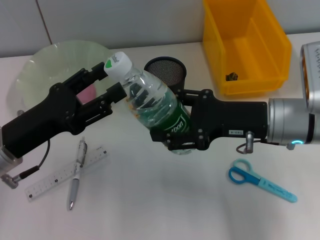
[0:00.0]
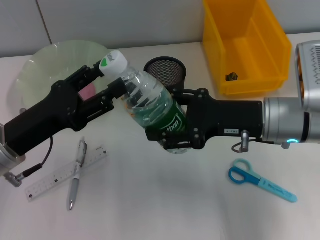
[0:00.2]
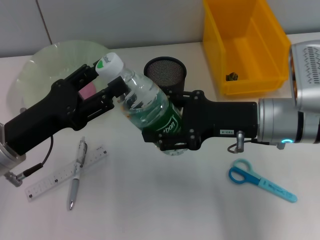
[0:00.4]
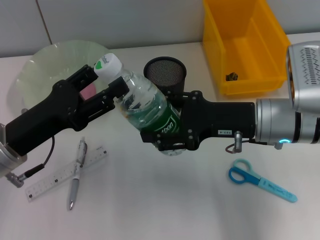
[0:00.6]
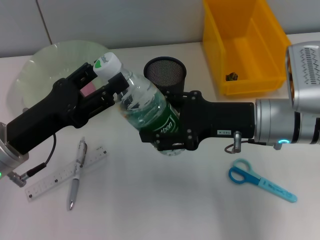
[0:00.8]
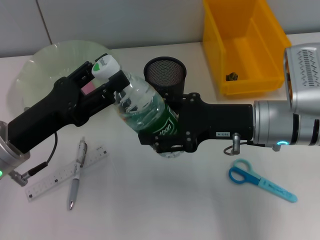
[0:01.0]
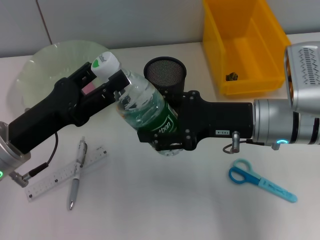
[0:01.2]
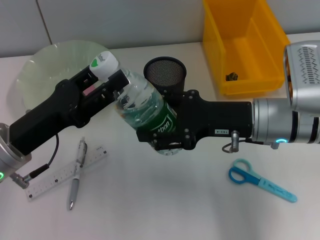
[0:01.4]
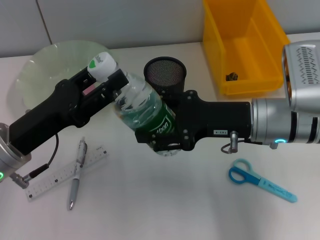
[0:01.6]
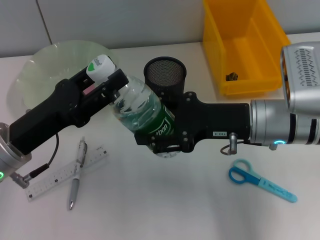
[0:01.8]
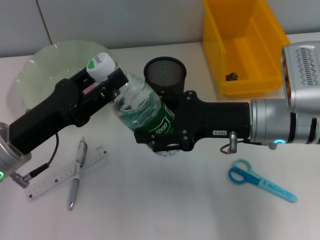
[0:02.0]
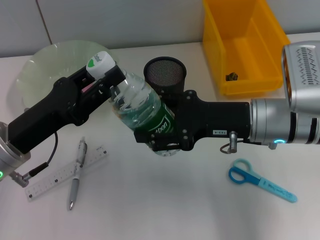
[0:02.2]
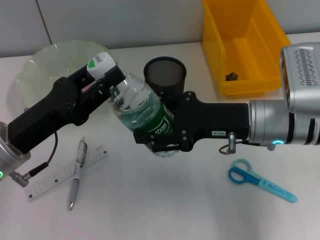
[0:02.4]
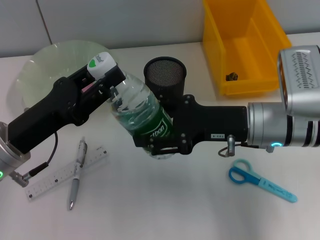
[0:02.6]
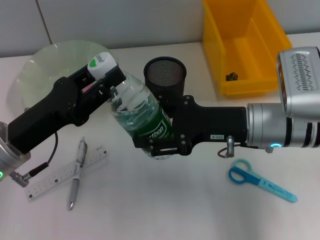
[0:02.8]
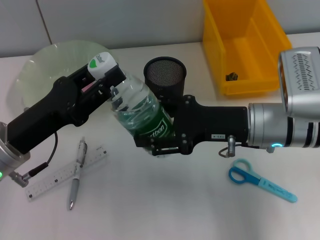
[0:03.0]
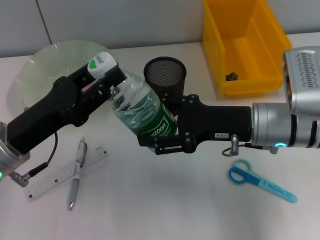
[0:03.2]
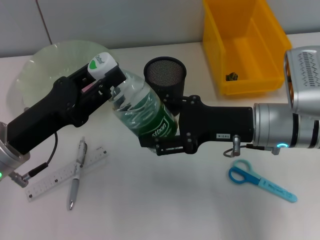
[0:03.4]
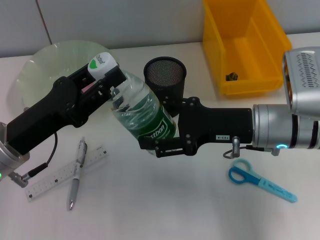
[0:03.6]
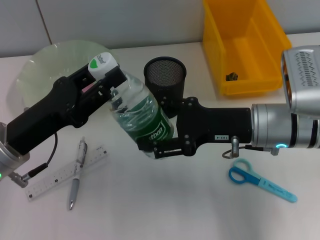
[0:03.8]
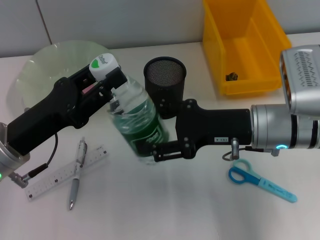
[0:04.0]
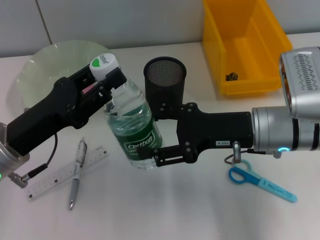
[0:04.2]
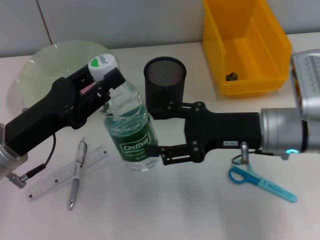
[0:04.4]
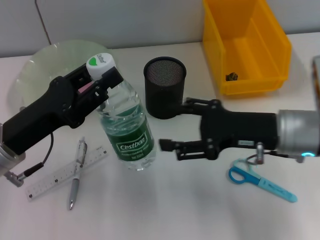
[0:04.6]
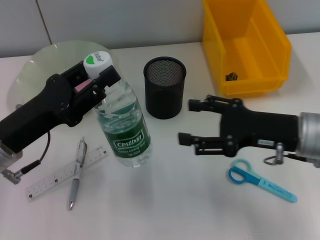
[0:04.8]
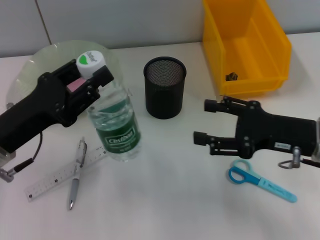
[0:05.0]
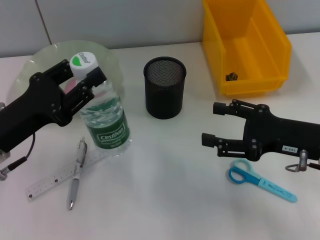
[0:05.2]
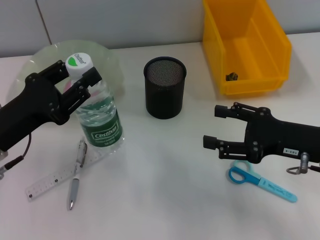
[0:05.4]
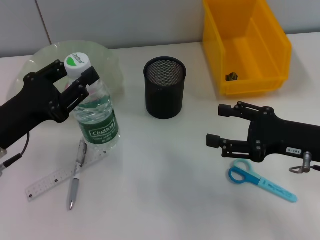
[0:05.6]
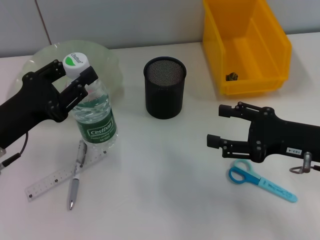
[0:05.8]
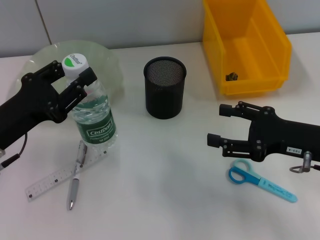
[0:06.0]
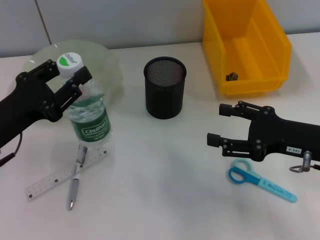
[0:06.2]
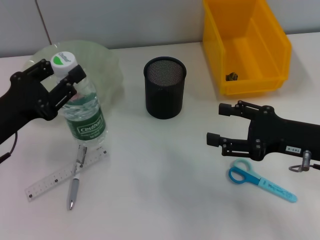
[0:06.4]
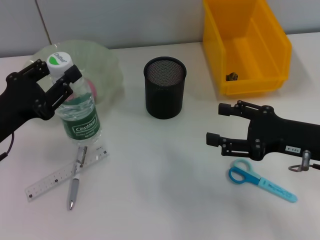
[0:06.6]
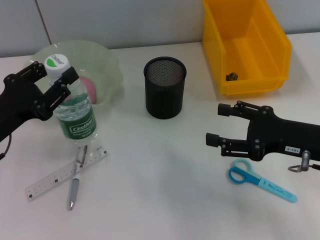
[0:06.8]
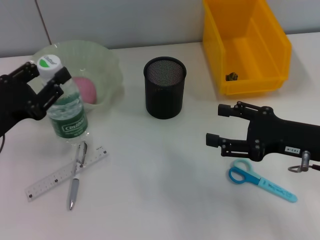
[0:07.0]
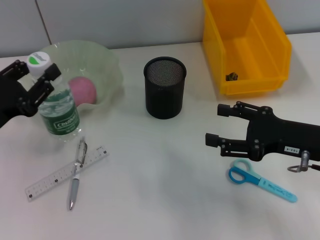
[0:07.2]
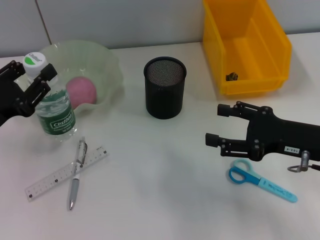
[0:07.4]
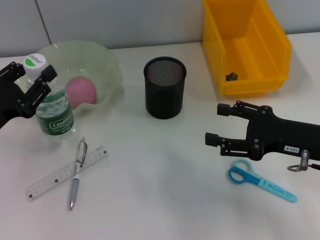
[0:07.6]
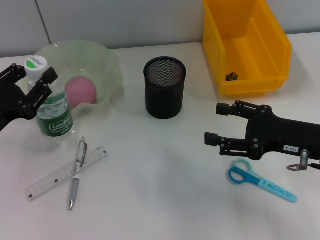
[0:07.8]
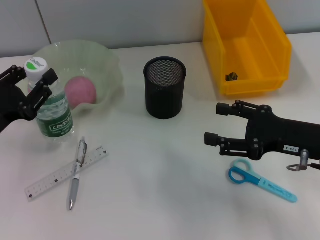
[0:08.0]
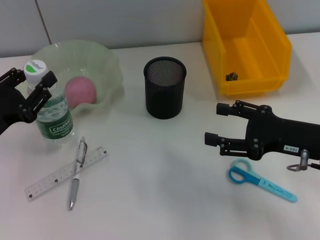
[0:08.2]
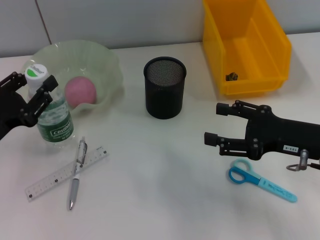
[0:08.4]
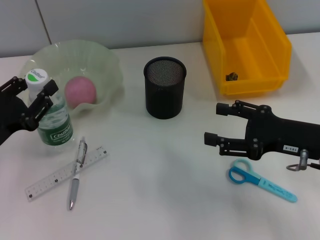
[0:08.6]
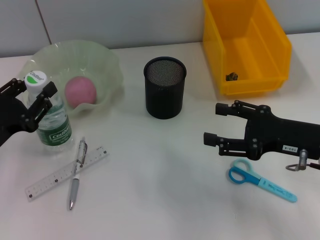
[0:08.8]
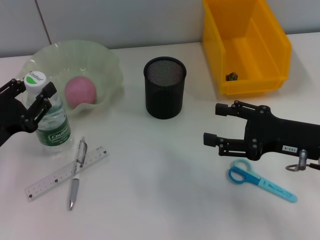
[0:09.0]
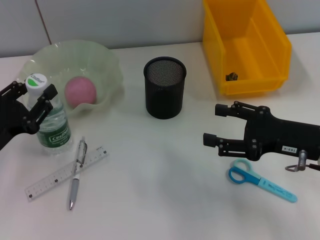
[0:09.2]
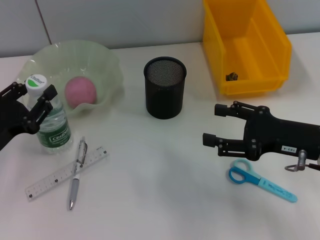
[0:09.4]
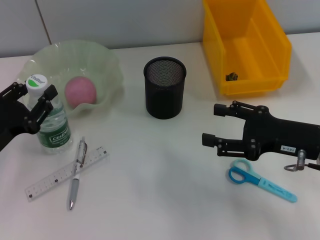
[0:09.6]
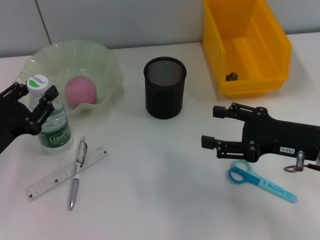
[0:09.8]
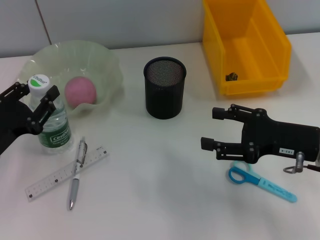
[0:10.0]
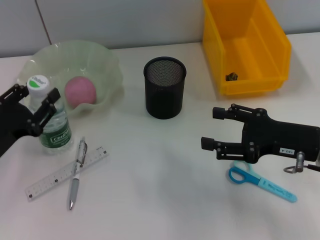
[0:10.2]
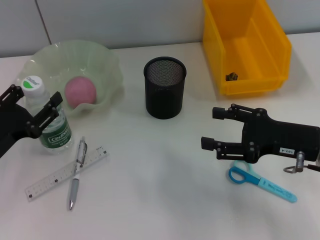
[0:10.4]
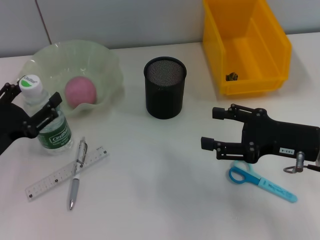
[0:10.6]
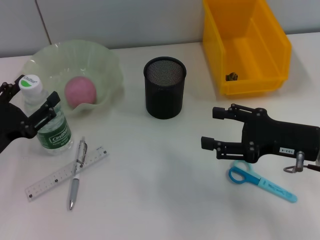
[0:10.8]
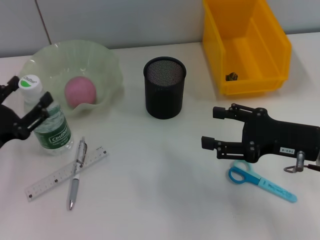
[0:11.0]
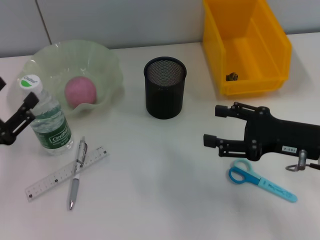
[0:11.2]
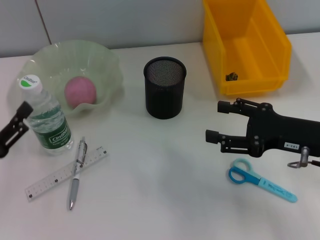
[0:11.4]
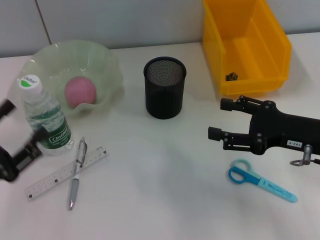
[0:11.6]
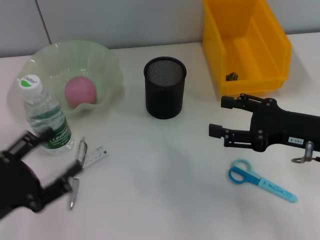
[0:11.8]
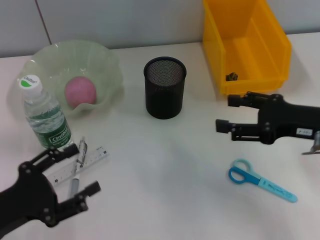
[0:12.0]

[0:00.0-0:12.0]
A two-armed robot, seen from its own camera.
Step, 0:00.0 to 0:04.6: Pass the water bottle from the right hand to the left hand.
Step, 0:04.8 to 0:10.8: Place the water bottle on the table with the left hand.
0:00.0 to 0:01.6: There are only small adjustments of the grippers.
0:01.6 to 0:03.0: Neither gripper changes place.
0:03.0 to 0:04.4: The grippers make only small movements.
0:04.4 to 0:06.0: The right gripper moves to the right, about 10 cm.
0:06.0 to 0:07.6: The grippers stay close to where they were, moving slightly.
0:07.6 to 0:09.0: The grippers stay close to where they were, moving slightly.
0:09.0 to 0:10.4: Neither gripper changes place.
0:10.4 to 0:12.0: The left gripper goes roughly 5 cm backward.

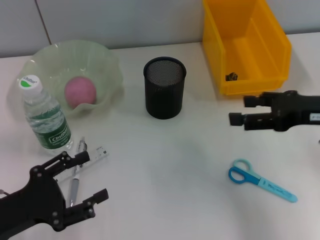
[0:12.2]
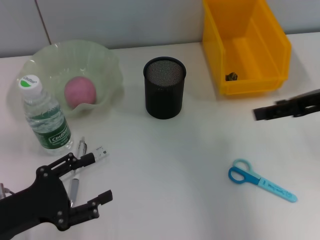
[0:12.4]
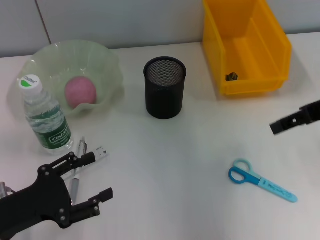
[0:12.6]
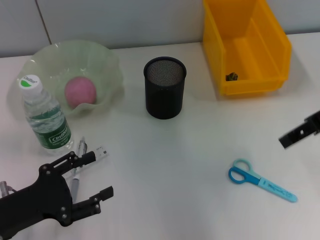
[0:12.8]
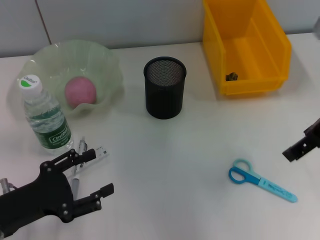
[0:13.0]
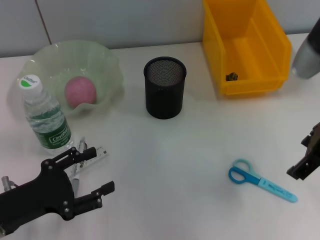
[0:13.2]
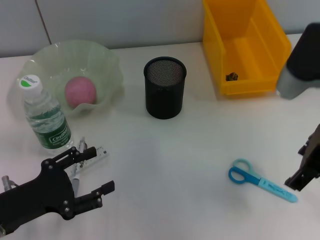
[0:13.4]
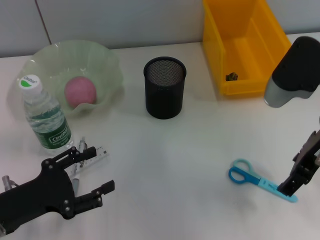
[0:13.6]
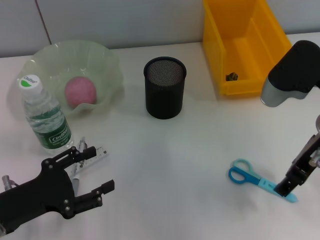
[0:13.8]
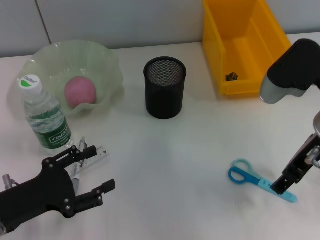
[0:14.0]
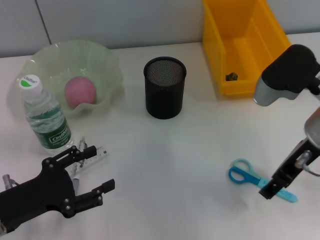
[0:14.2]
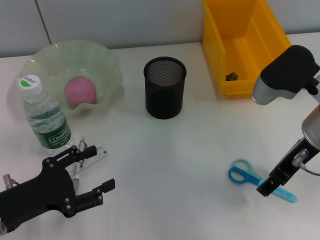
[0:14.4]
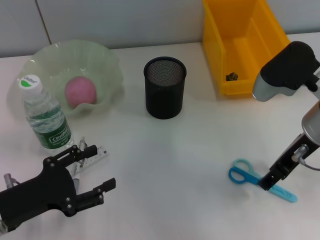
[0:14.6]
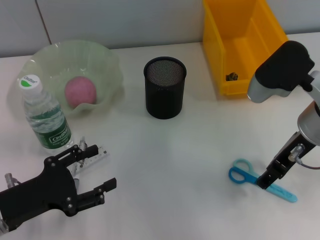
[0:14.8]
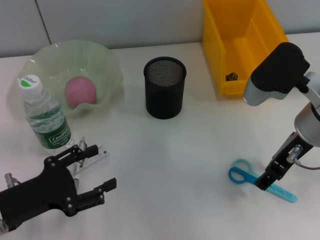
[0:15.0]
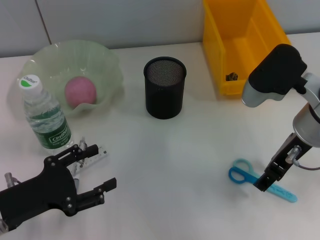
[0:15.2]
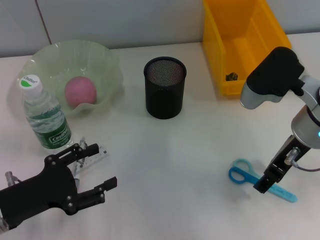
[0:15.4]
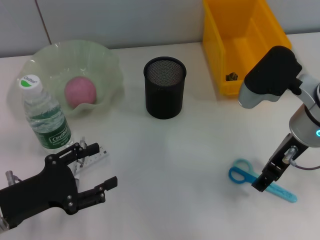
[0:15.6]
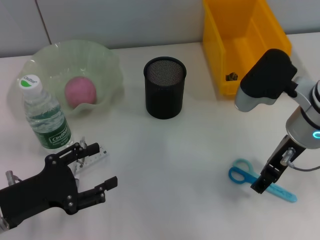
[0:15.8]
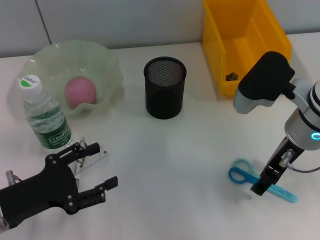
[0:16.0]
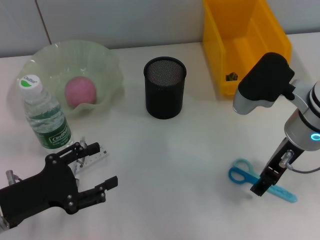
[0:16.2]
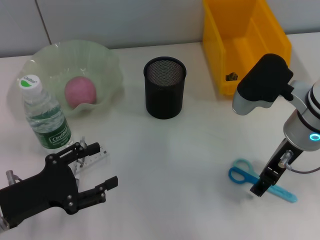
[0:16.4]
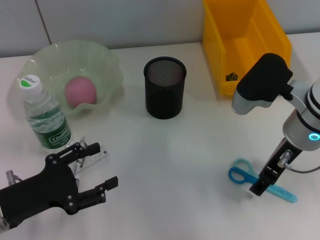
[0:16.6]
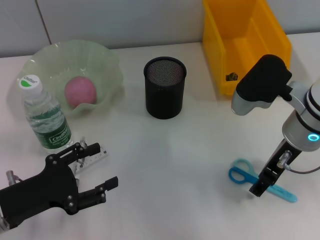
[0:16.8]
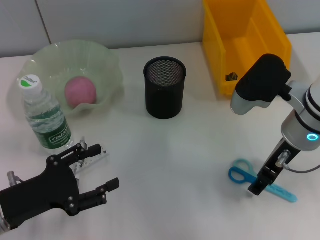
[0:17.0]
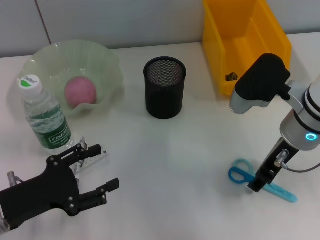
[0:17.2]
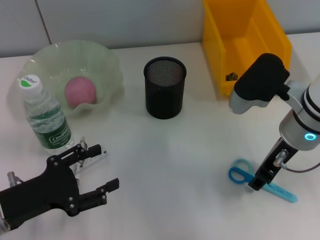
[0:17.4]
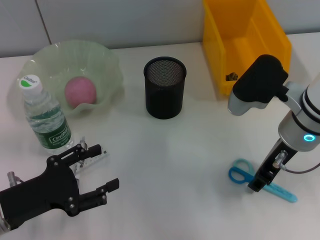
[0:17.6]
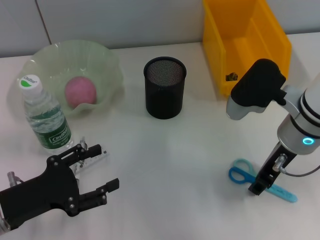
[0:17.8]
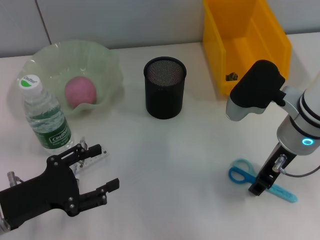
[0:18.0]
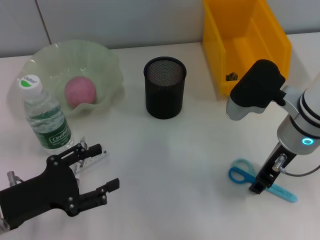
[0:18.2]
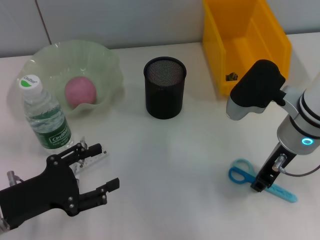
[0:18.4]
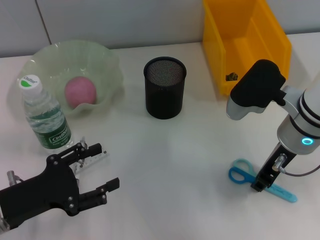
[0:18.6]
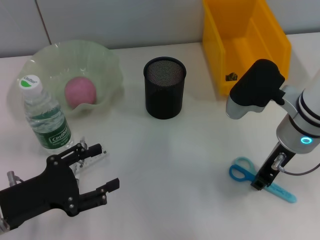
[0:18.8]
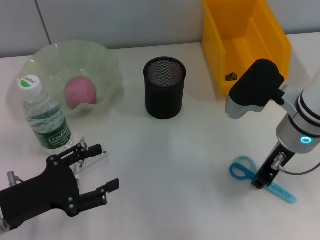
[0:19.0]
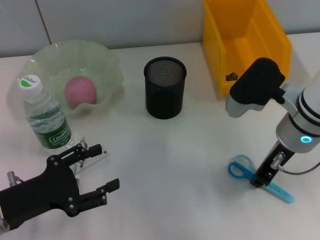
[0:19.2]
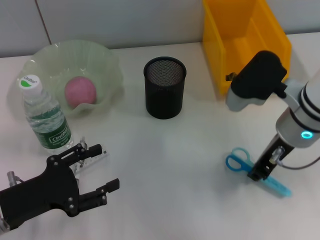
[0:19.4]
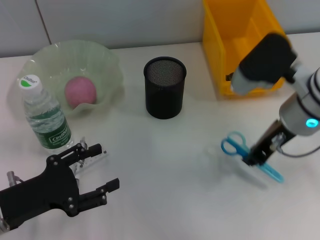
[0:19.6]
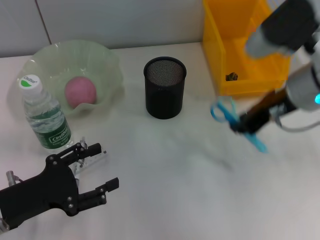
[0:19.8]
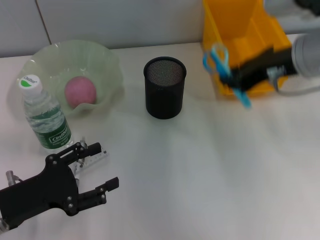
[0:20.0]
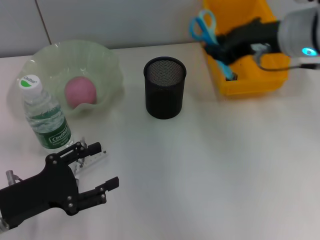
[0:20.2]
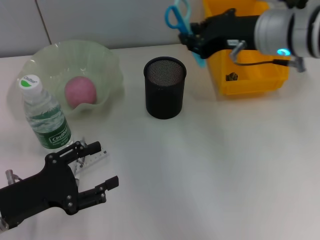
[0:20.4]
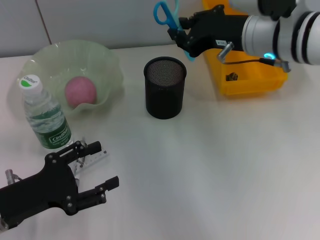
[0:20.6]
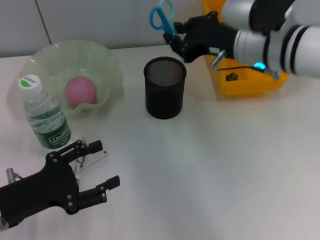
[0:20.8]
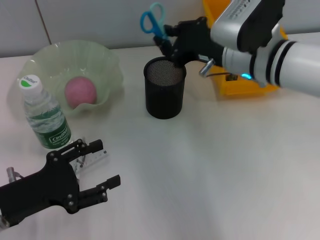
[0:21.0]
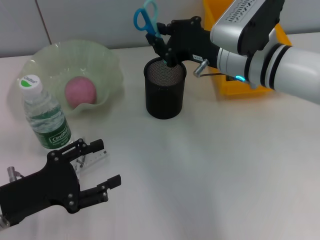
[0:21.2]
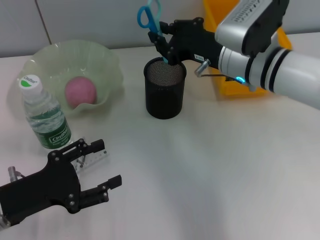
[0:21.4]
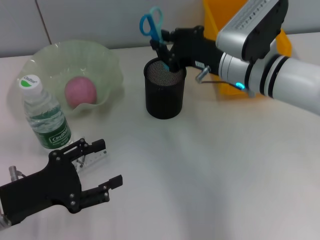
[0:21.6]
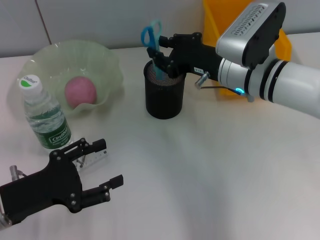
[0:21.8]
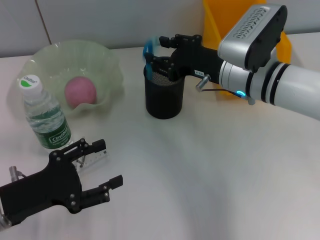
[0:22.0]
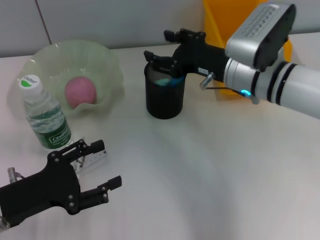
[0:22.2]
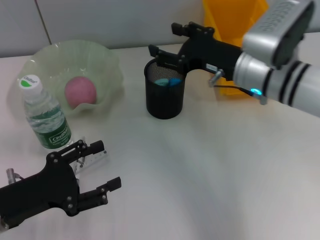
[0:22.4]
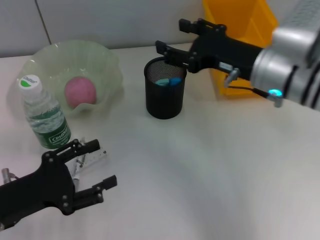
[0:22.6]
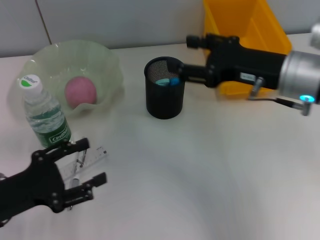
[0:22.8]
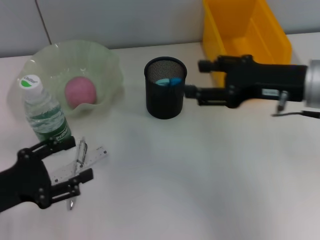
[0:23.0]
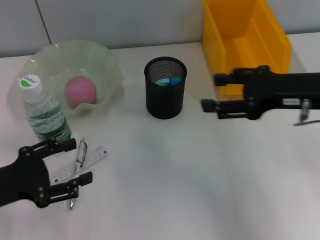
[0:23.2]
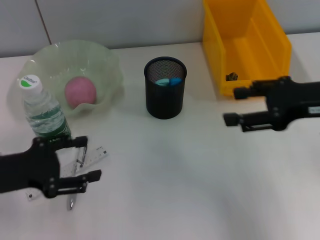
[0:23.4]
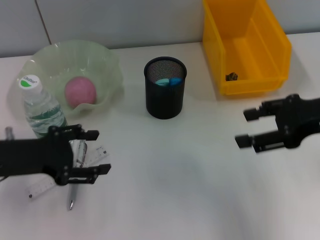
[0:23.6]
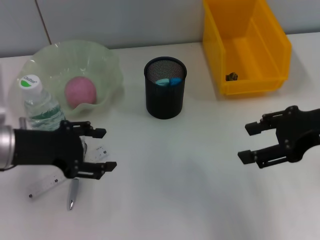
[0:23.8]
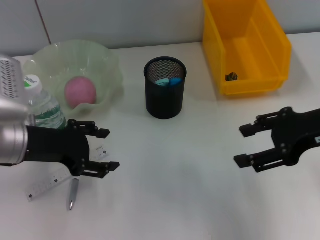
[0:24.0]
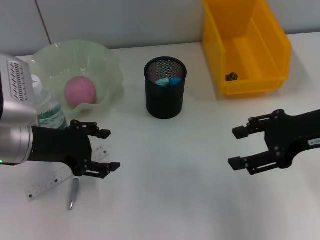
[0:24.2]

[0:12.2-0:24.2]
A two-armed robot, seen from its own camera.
Step, 0:12.2 to 0:18.8: Grab the blue scissors with the right hand.
Step, 0:19.0 to 0:22.4: Place the blue scissors into the pen holder with the right hand.
0:12.2 to 0:13.8: The right gripper goes roughly 5 cm to the left.
0:13.8 to 0:16.6: The grippers move only a little.
0:16.6 to 0:18.2: The right gripper closes its fingers.
0:18.2 to 0:19.8: The right gripper moves upward, roughly 5 cm, and closes up.
0:19.8 to 0:21.2: The right gripper moves forward, downward and to the left, some 10 cm.
0:21.2 to 0:22.6: The right gripper changes place by about 5 cm, and opens up.
0:22.6 to 0:24.2: The right gripper travels to the right and backward by about 10 cm. Meanwhile the left gripper is displaced forward and upward by approximately 10 cm.
